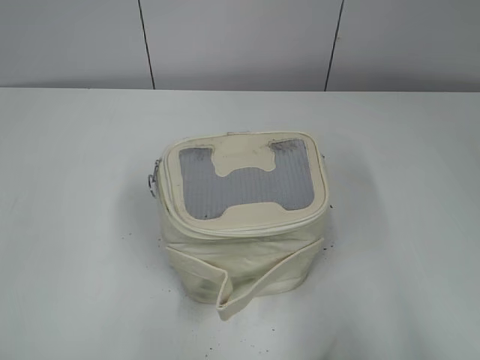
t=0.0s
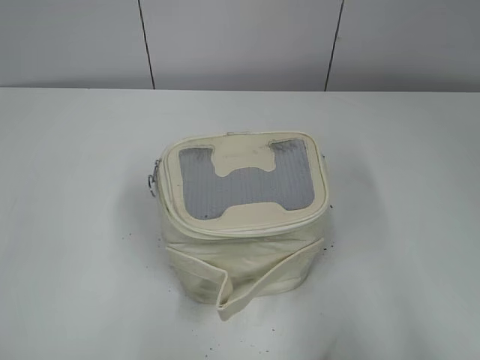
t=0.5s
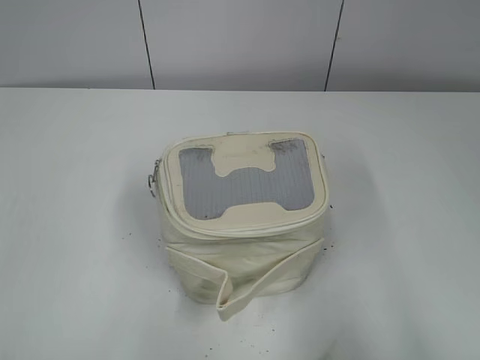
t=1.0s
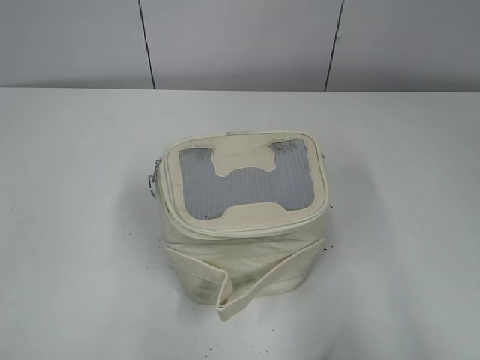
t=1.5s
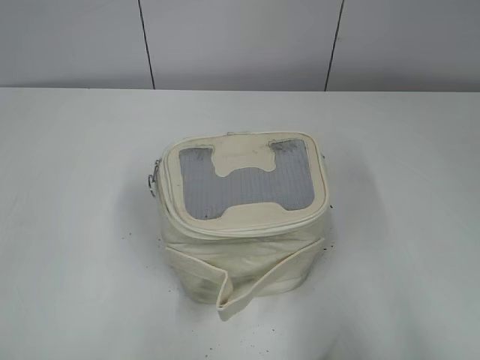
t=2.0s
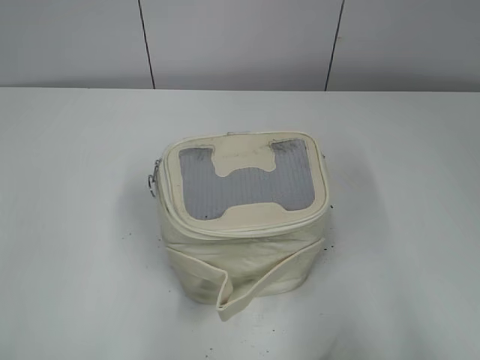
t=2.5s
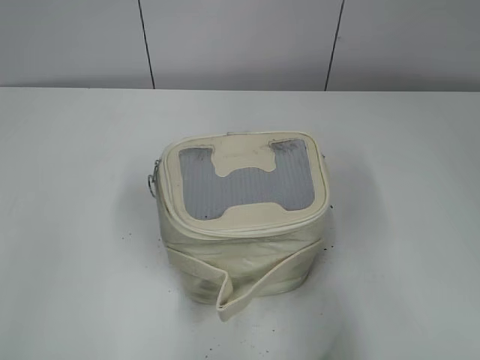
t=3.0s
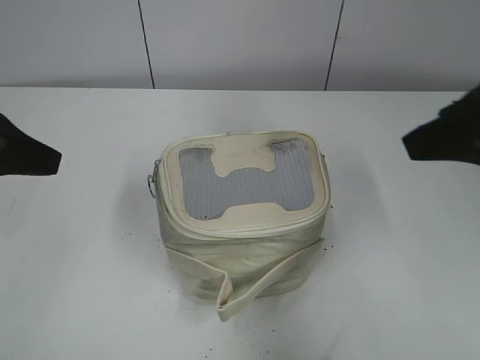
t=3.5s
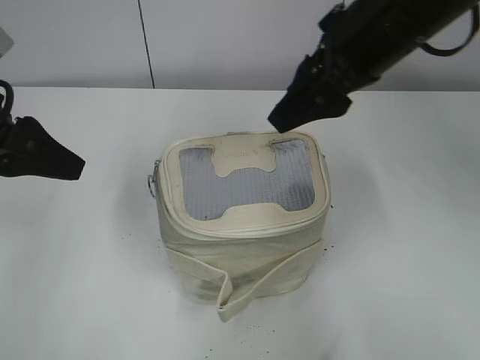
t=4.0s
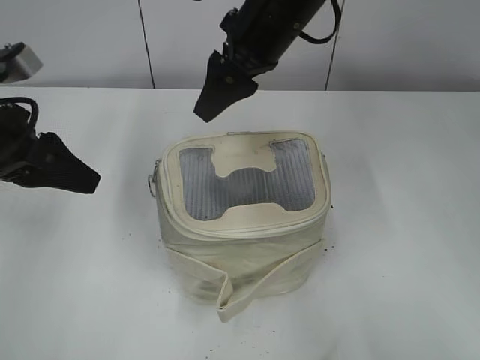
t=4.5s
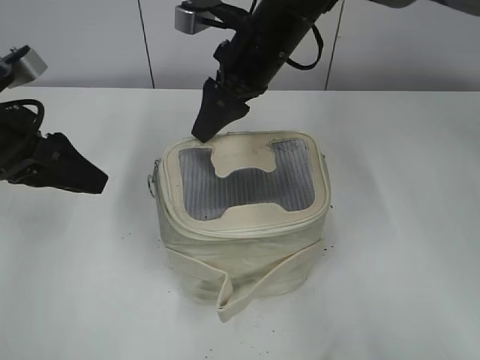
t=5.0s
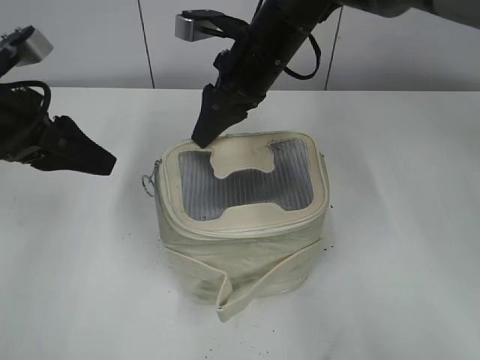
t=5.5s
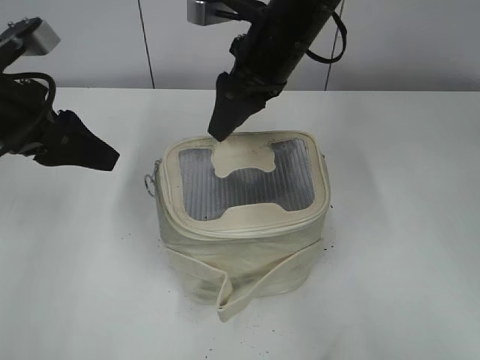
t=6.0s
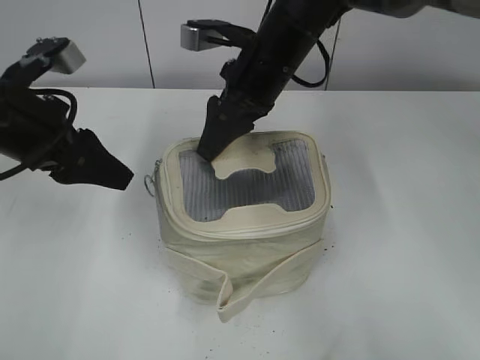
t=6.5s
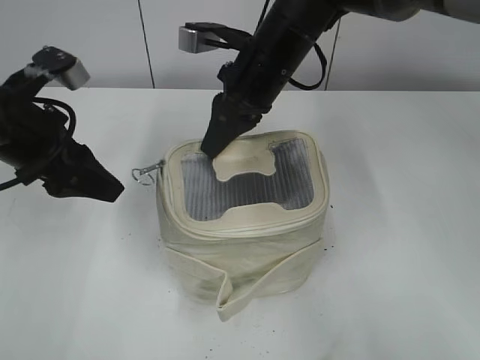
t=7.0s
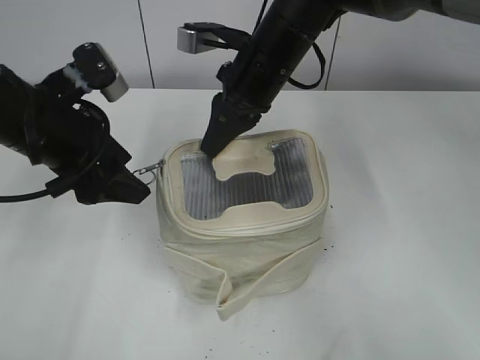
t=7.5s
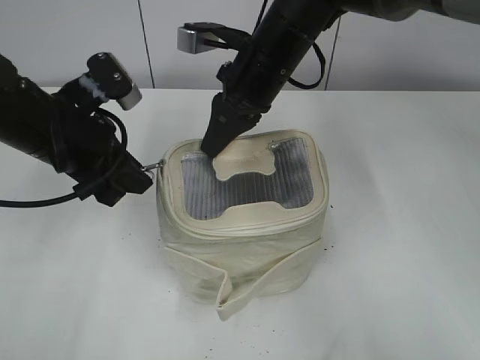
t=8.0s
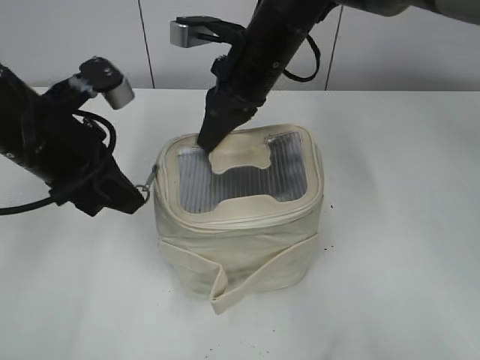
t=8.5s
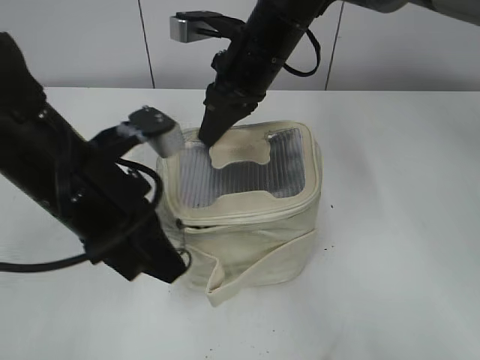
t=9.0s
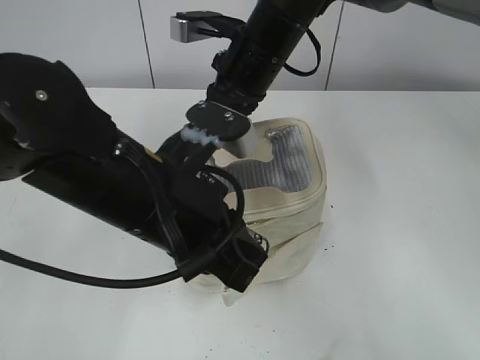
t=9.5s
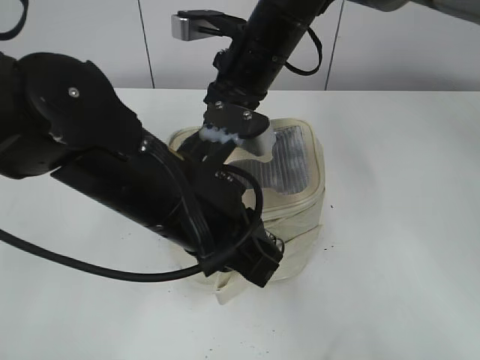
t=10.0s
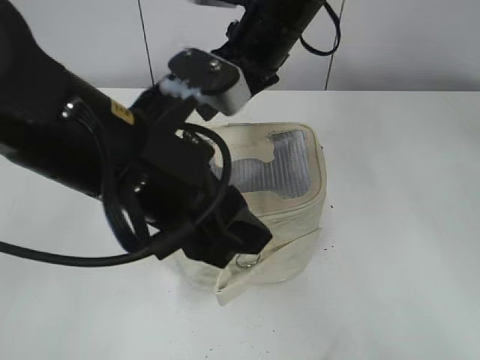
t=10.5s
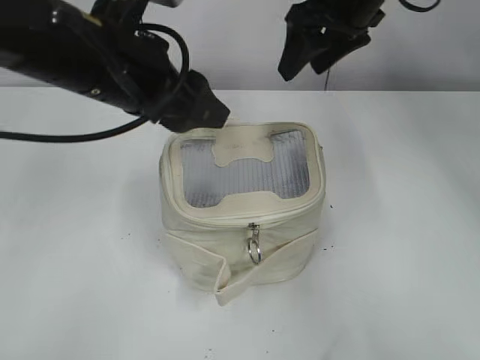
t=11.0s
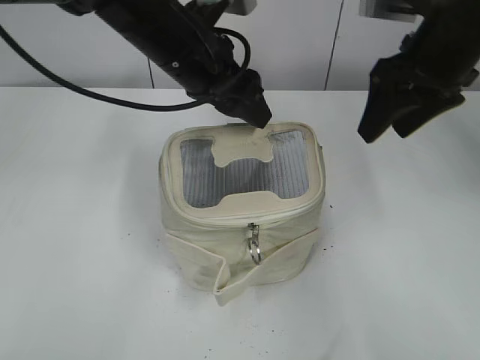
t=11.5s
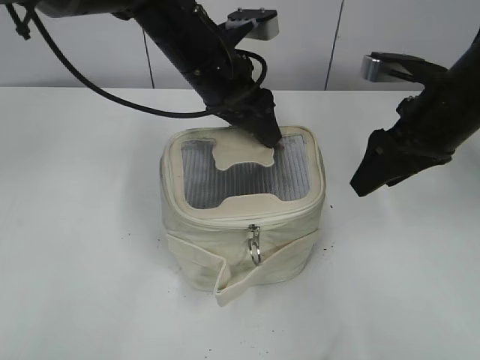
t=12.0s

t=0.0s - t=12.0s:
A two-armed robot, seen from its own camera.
Step, t=0.0s - t=10.0s: Zip up the bag with your left hand.
t=2.0s - t=4.0s: The right gripper shifts some 35 cm forward and to the left. The left gripper travels forward by approximately 25 cm.
t=4.0s - t=6.0s: The right gripper heads forward, to the left and downward, covering about 10 cm.
t=6.0s - t=8.0s: The left gripper goes approximately 5 cm to the right; the right gripper closes.
t=8.0s - t=10.0s: The left gripper moves to the right and backward, about 15 cm, and closes up.
t=10.0s - t=12.0s: The right gripper heads to the right and backward, covering roughly 20 cm, and opens up; the left gripper moves forward, about 20 cm, and opens up.

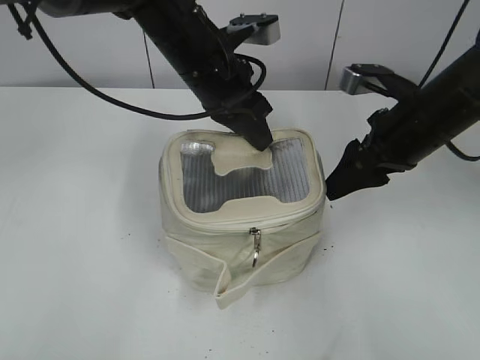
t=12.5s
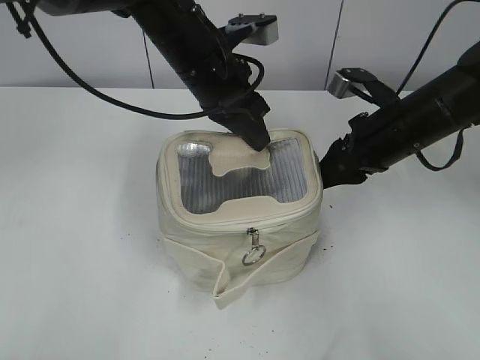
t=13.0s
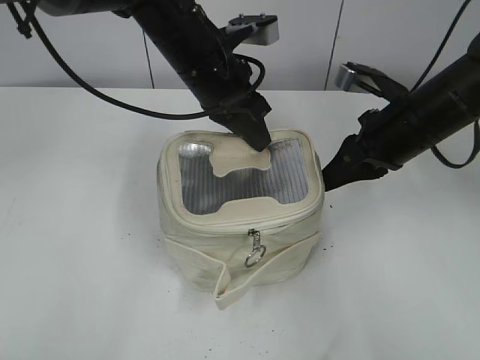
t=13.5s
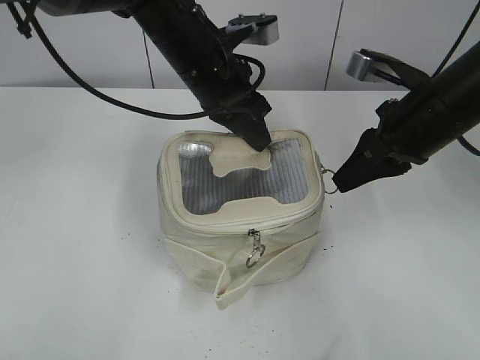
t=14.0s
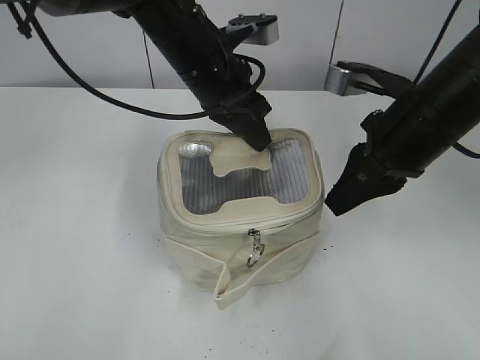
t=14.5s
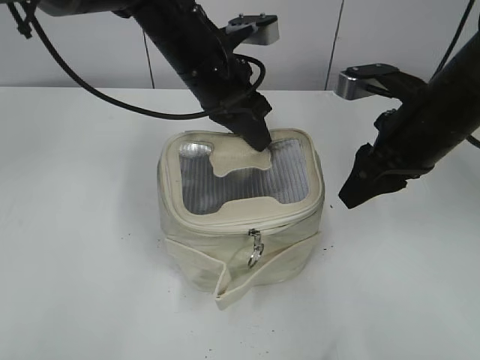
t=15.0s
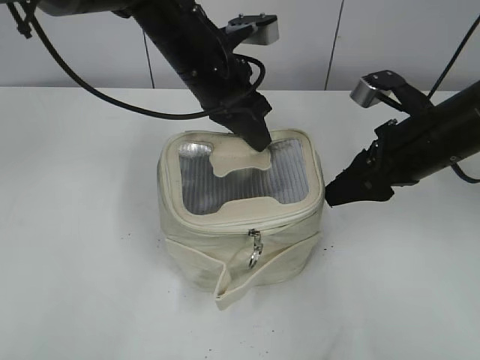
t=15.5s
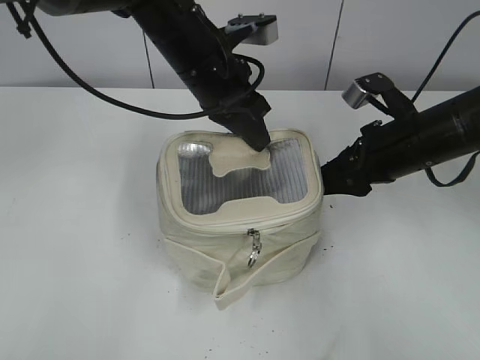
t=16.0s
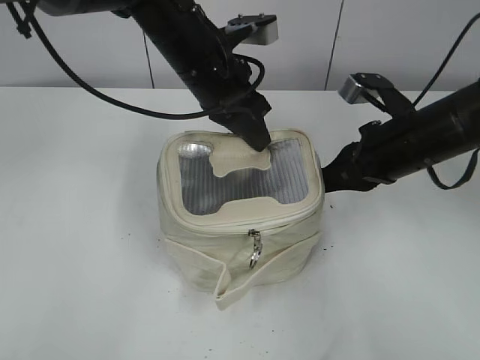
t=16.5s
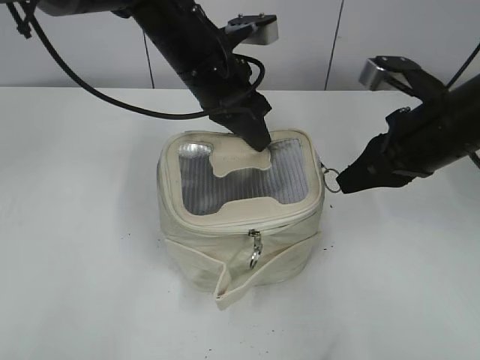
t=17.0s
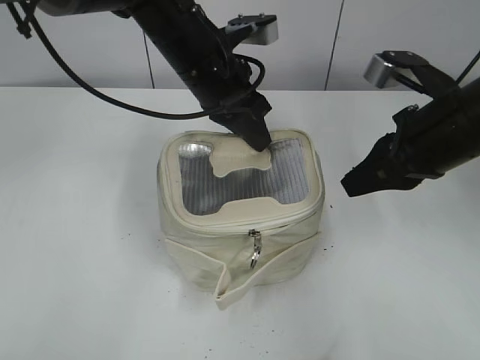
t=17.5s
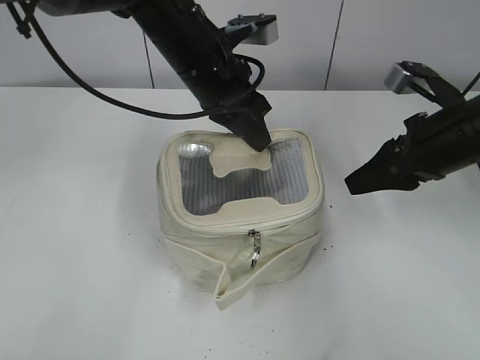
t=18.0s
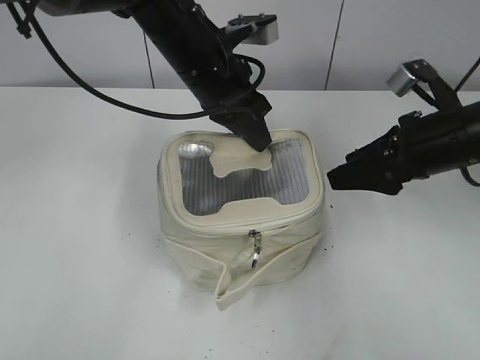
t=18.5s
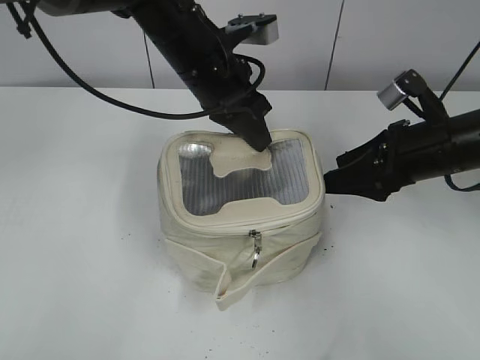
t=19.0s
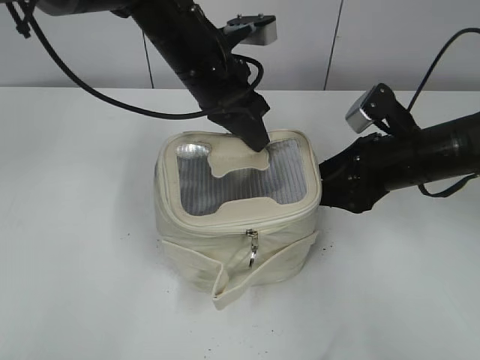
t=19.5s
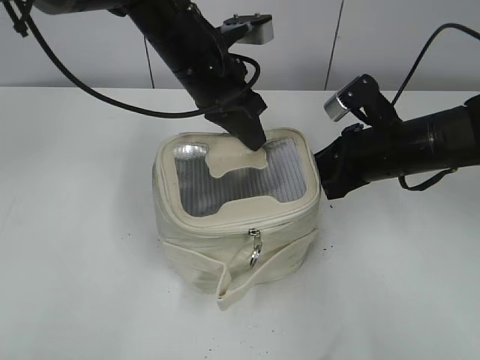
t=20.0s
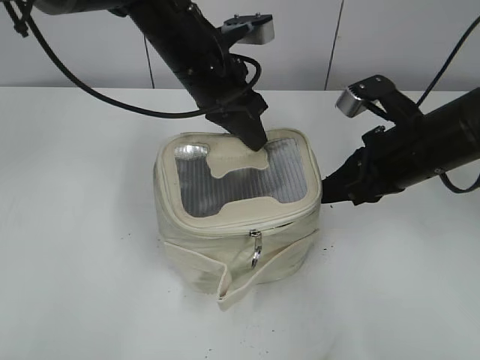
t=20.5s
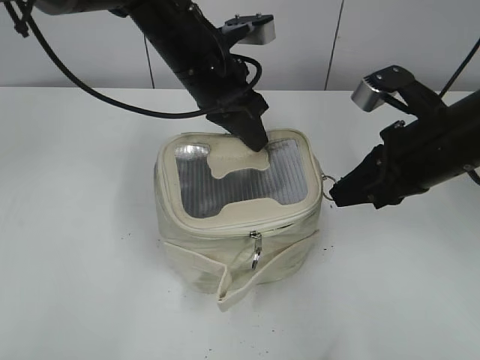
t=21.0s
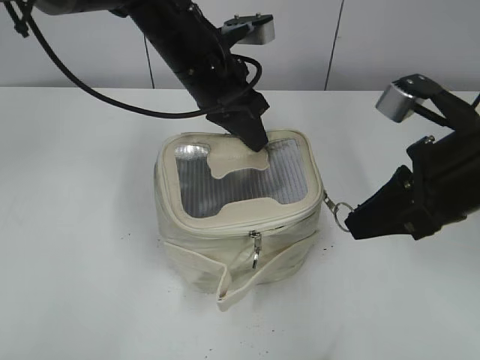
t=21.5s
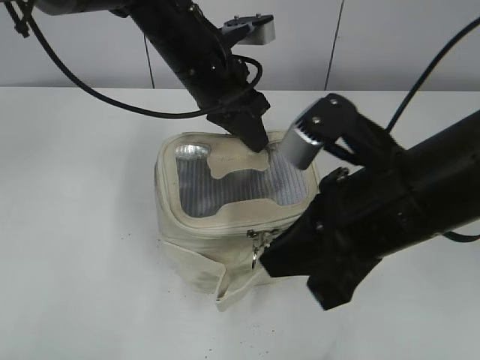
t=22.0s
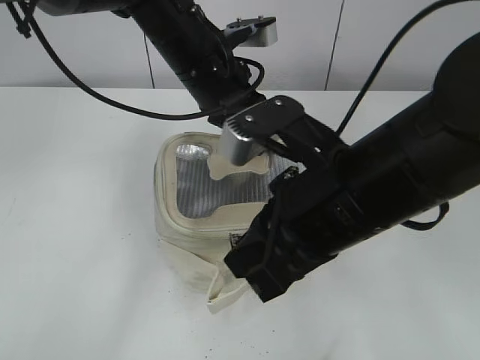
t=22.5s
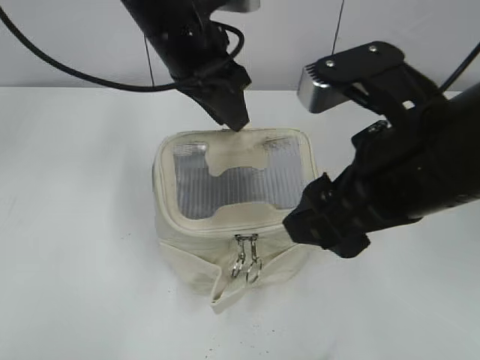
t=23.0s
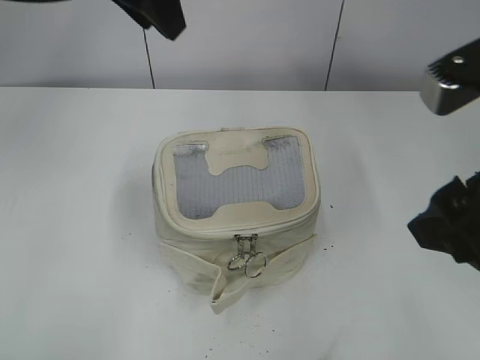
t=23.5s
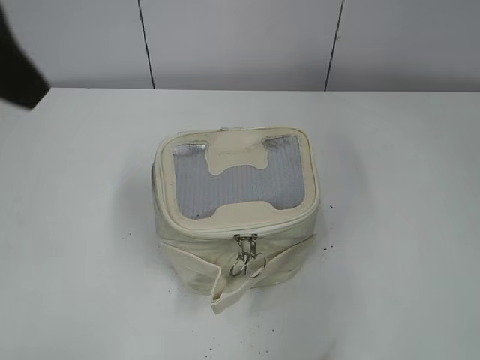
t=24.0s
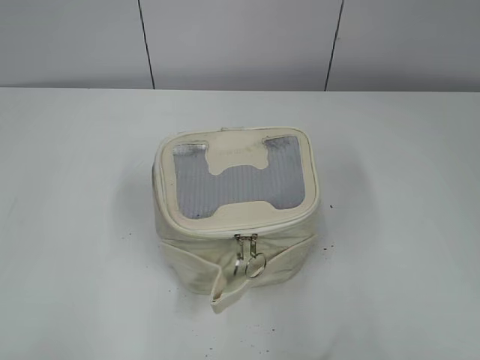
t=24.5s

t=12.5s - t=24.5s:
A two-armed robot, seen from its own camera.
Step, t=12.5s - t=22.5s: Zip up the bag with your right hand.
t=12.5s - t=14.5s: The right gripper shifts by about 5 cm, and closes.
t=14.5s - t=16.5s: The right gripper heads downward, covering roughly 5 cm, and opens and closes again.
t=16.5s - t=18.5s: The right gripper opens up.
t=18.5s - t=20.5s: The right gripper closes.
t=20.5s - t=22.5s: The right gripper shifts about 15 cm to the left, backward and upward.
t=22.5s - t=24.5s: The right gripper goes some 25 cm to the right and backward, and opens up; the left gripper goes approximately 40 cm backward and to the left, and opens up.

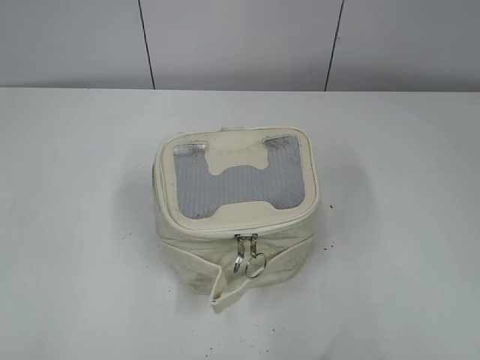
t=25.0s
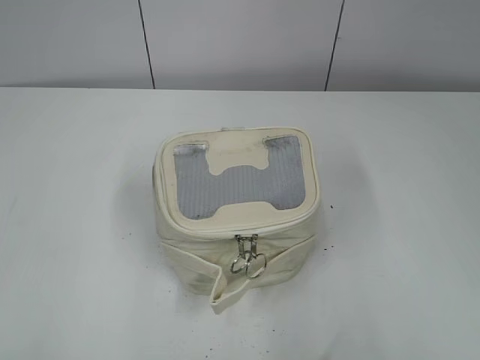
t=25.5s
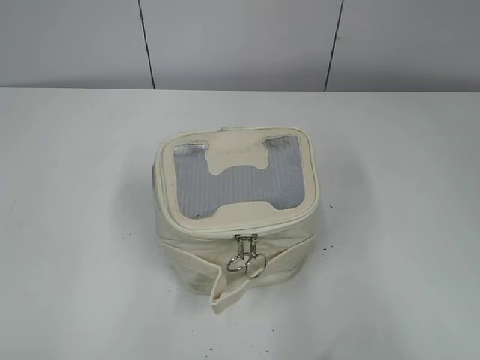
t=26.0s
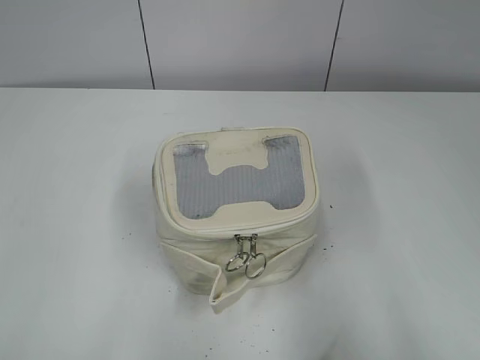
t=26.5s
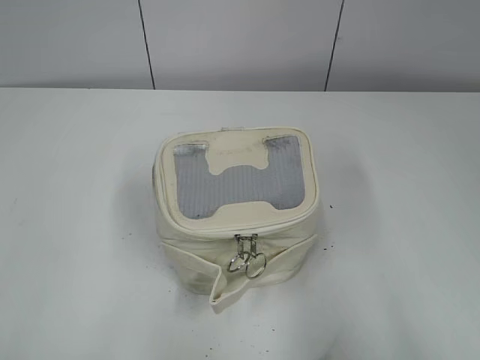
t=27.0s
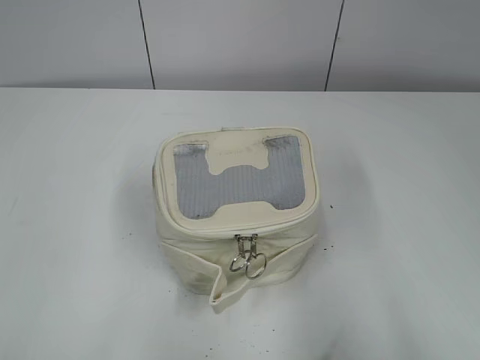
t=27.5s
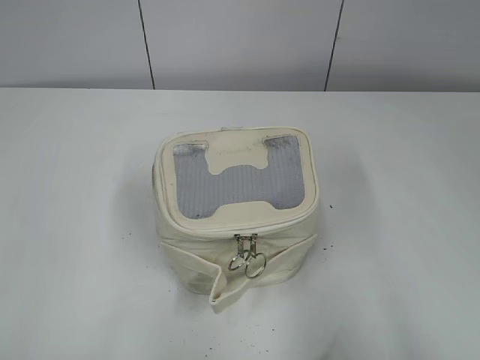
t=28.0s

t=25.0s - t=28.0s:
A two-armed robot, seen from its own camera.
t=26.5s - t=28.0s: Neither gripper changes place.
